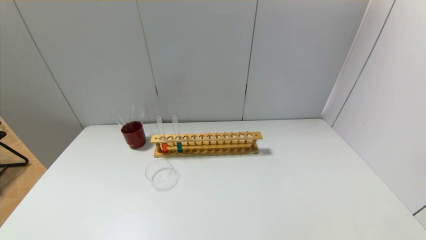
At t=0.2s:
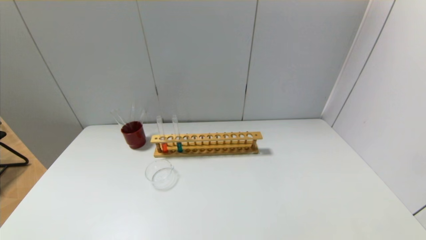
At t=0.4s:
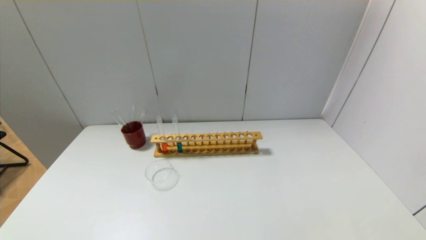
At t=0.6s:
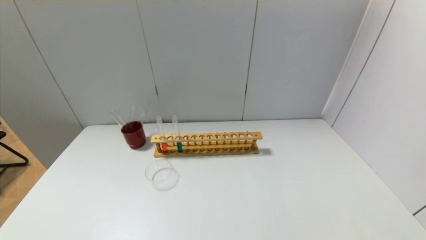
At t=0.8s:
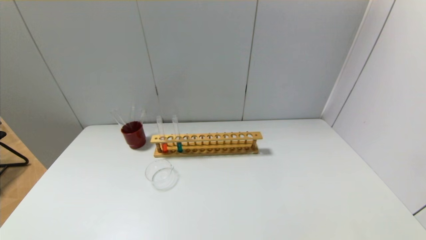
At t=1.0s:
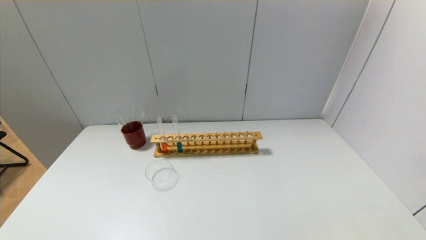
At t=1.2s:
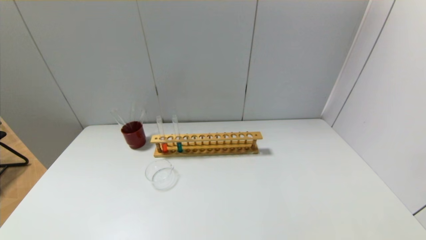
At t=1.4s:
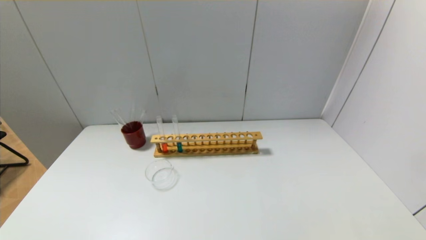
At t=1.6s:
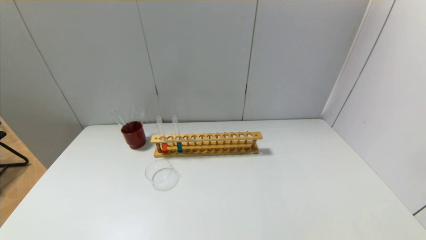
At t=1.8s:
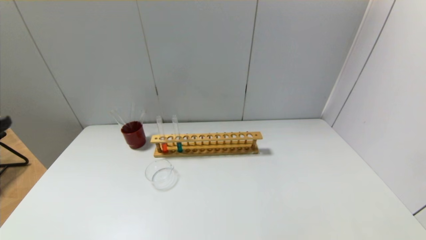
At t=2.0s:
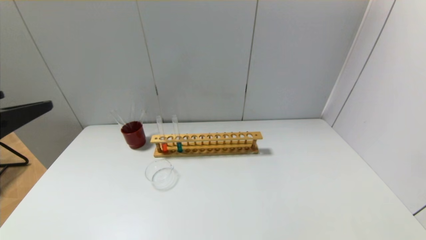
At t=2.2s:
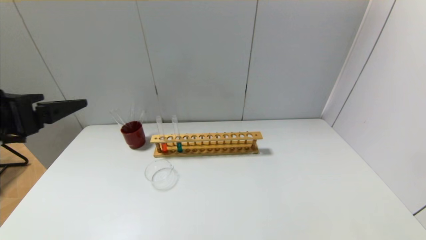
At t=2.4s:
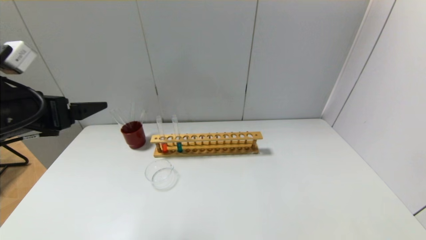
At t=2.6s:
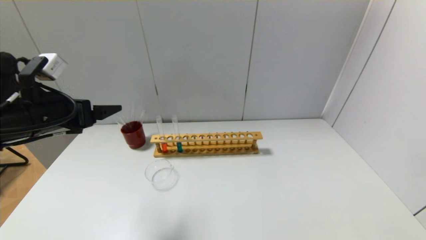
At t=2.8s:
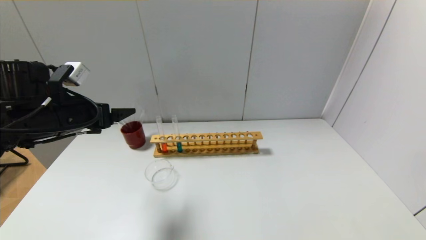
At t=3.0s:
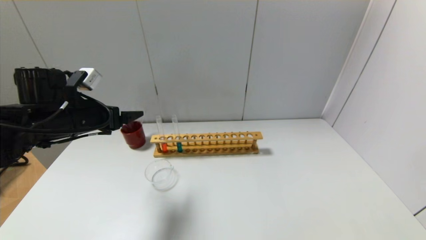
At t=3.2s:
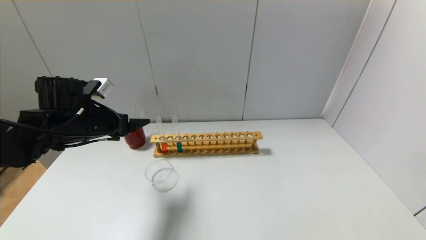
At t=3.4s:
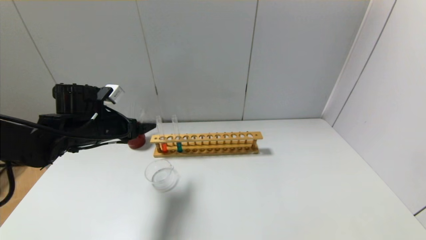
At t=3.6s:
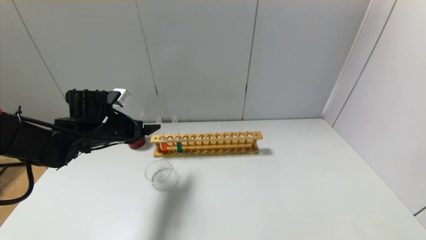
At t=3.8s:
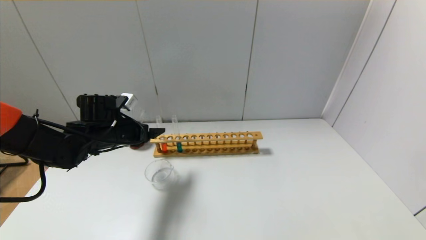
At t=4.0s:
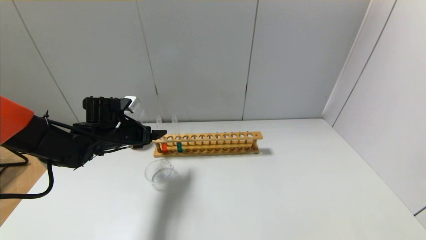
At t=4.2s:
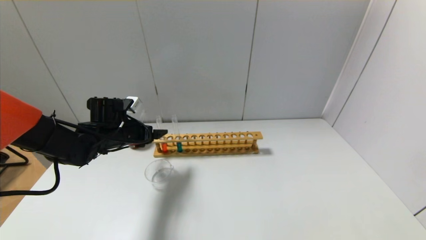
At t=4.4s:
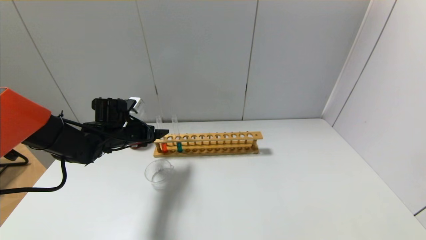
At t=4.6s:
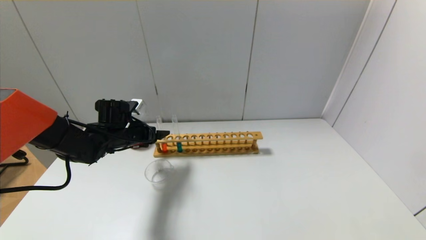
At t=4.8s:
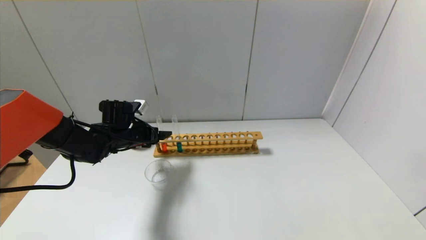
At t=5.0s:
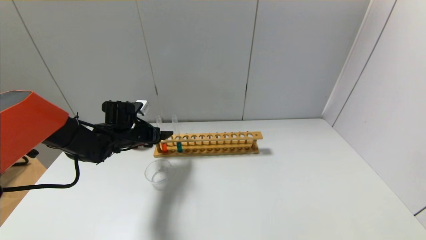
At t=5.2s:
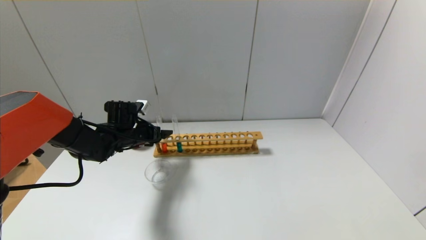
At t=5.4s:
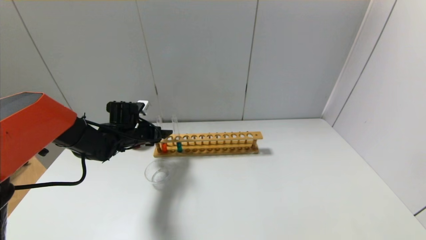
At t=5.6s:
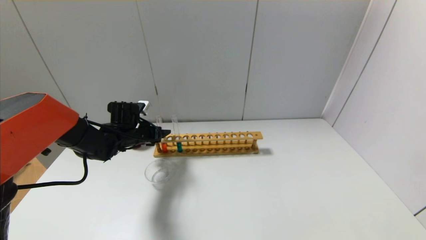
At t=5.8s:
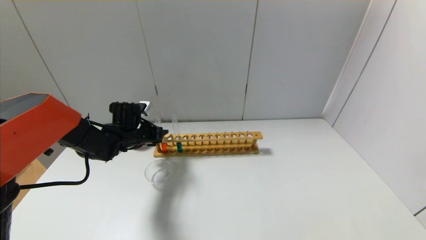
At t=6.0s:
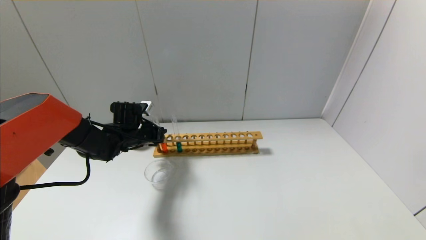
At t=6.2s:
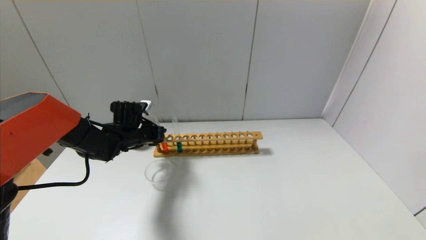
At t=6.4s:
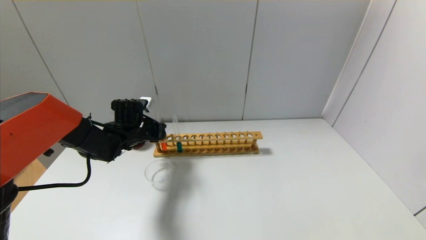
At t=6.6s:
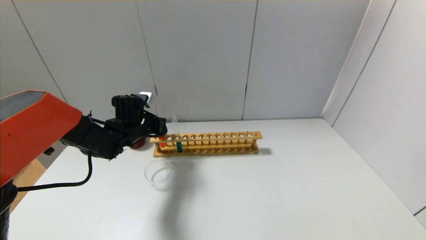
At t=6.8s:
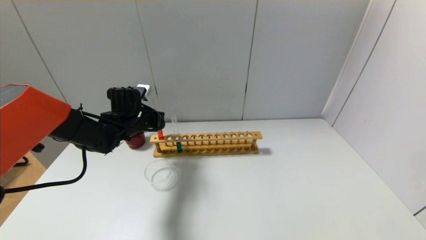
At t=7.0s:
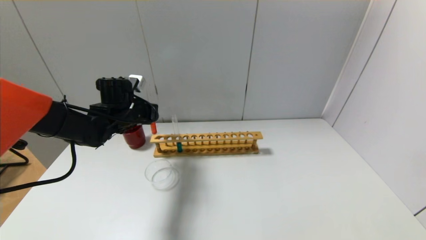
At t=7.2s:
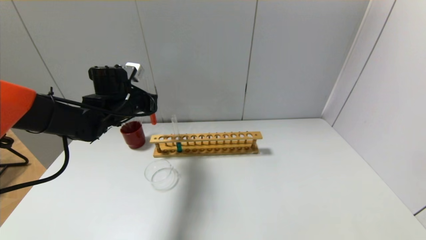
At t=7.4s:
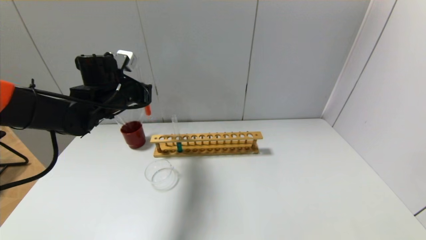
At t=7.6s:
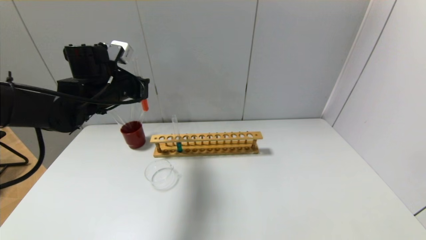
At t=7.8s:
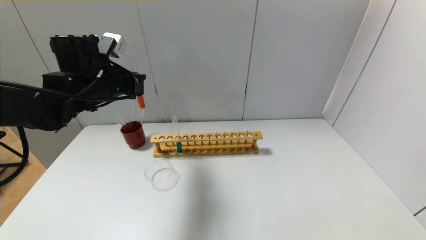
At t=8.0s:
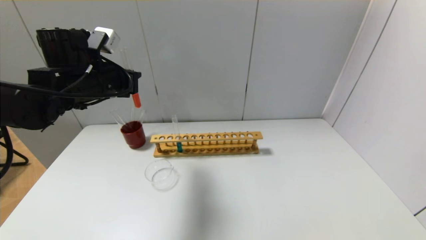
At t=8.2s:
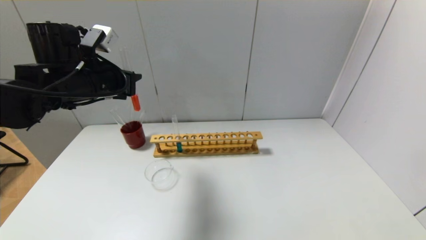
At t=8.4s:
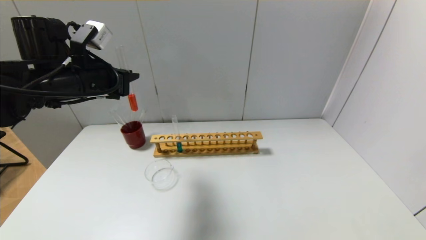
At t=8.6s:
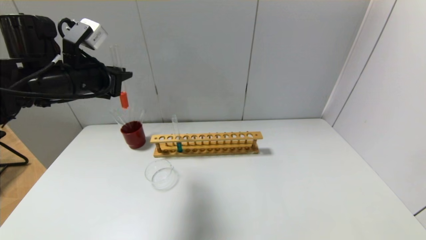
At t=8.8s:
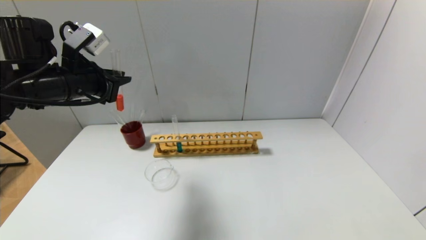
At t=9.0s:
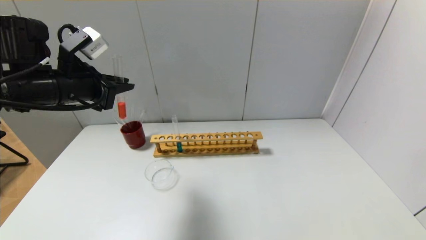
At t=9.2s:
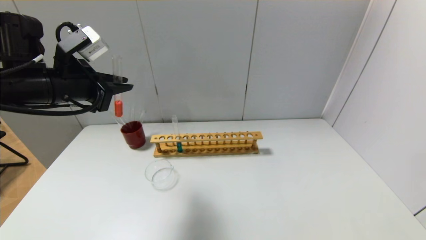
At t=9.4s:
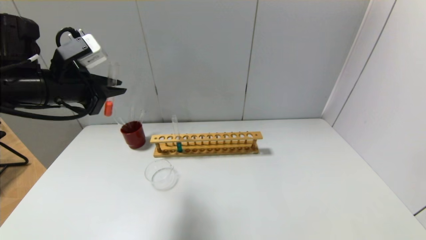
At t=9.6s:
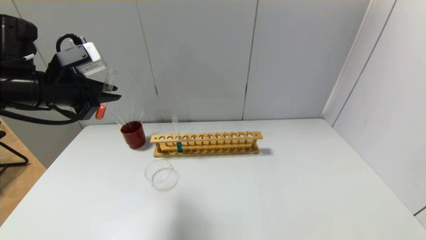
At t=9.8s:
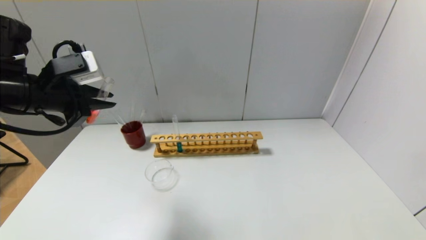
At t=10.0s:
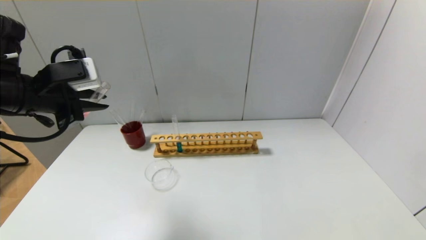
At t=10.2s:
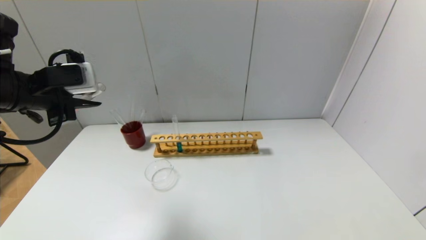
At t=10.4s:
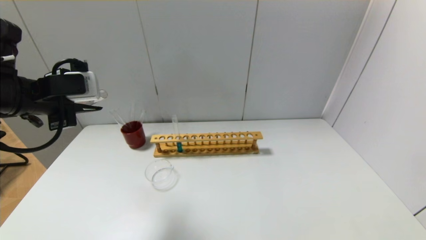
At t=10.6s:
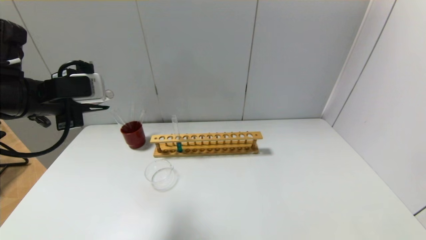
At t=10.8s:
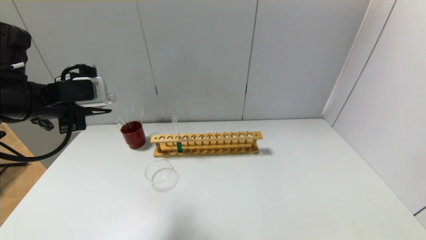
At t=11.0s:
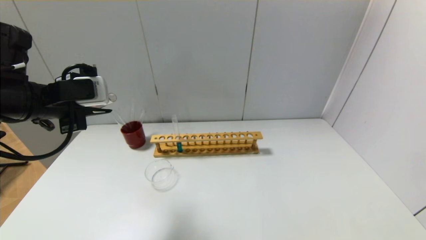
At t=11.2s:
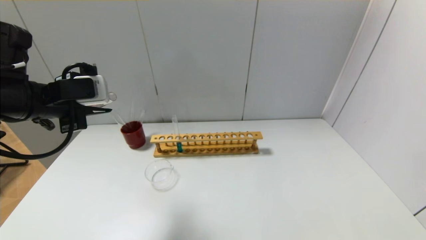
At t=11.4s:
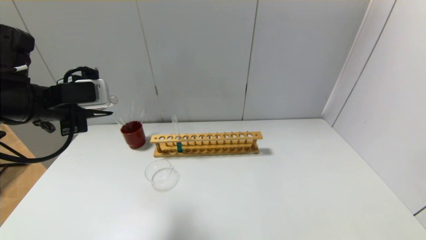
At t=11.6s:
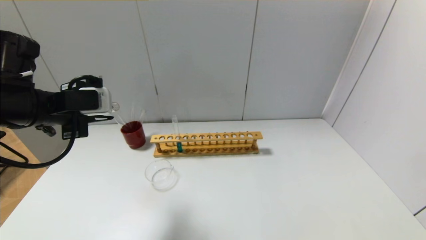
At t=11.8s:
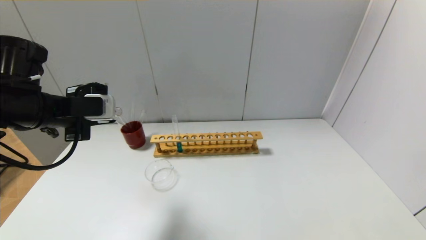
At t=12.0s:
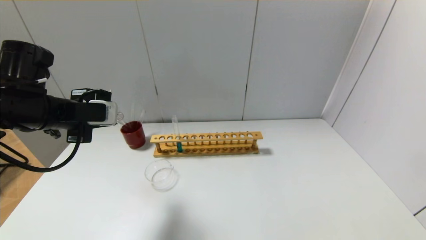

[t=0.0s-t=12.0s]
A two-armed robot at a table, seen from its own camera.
Step, t=0.0s to t=6.0s: Grasp the red reagent with the left gripper.
t=1.6s to t=3.0s: The left gripper moves forward, some 30 cm.
t=3.0s to t=4.4s: The left gripper shifts roughly 10 cm downward and forward.
t=4.4s to t=6.0s: The left gripper closes up.
t=6.0s to t=7.6s: The left gripper travels upward by approximately 15 cm.
t=7.6s to t=9.0s: The left gripper travels backward by about 10 cm.
t=10.4s to t=12.0s: There are only small adjustments of the grippers.

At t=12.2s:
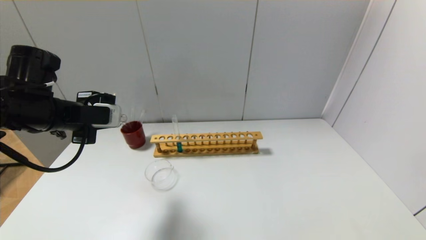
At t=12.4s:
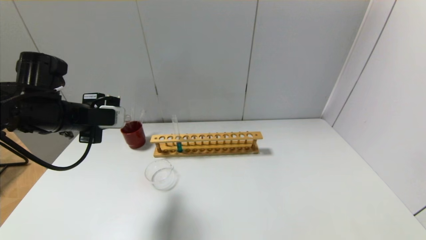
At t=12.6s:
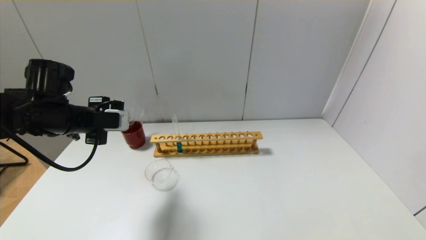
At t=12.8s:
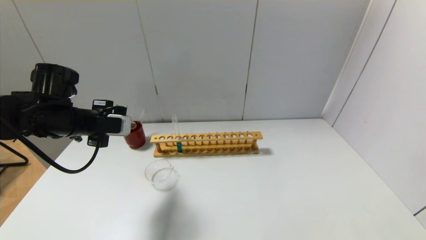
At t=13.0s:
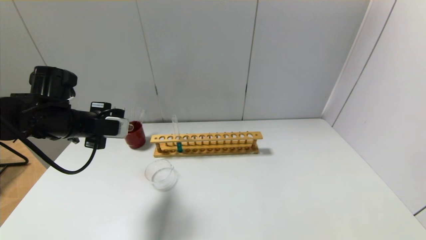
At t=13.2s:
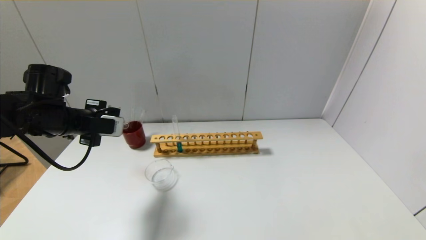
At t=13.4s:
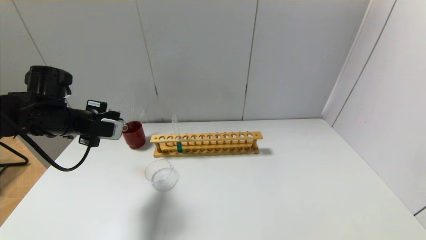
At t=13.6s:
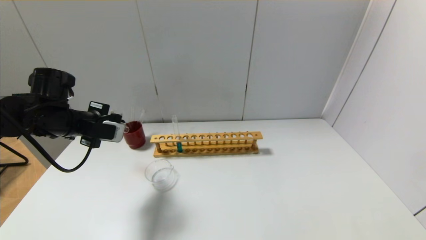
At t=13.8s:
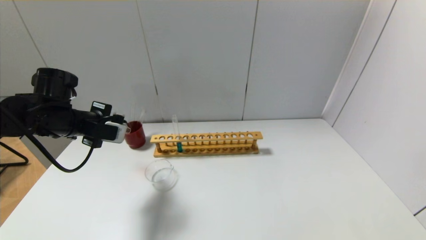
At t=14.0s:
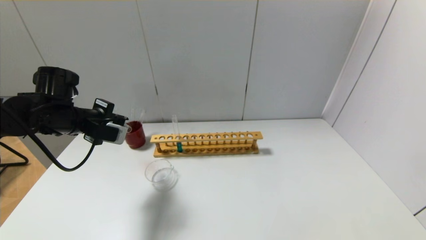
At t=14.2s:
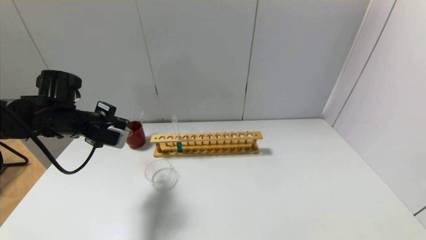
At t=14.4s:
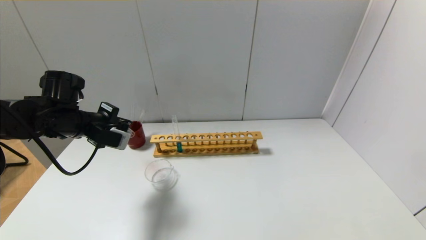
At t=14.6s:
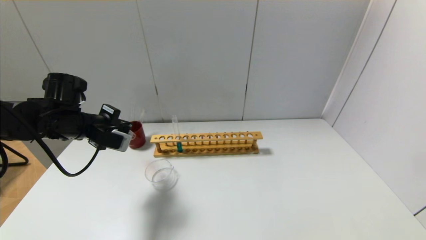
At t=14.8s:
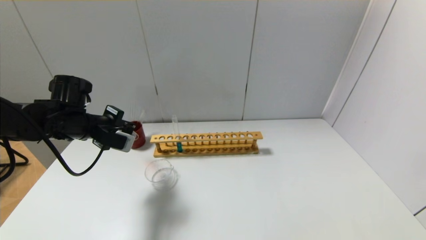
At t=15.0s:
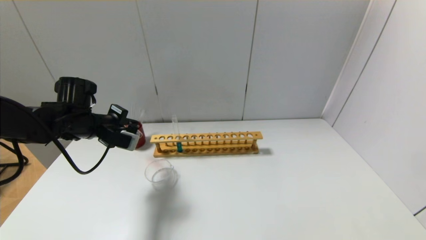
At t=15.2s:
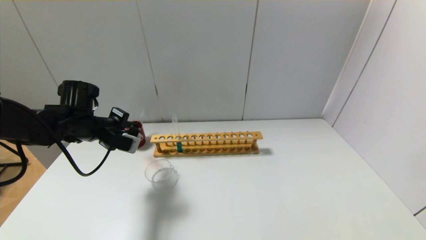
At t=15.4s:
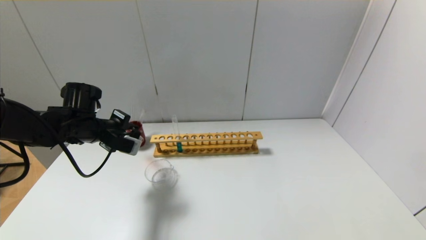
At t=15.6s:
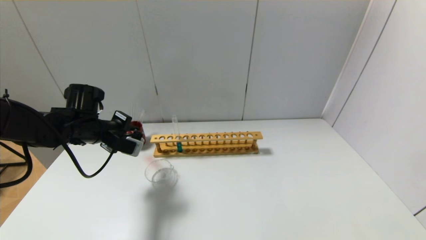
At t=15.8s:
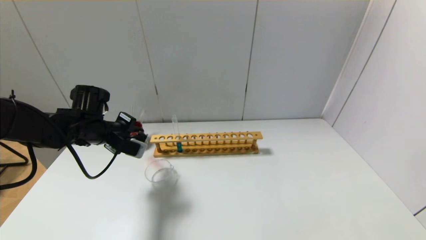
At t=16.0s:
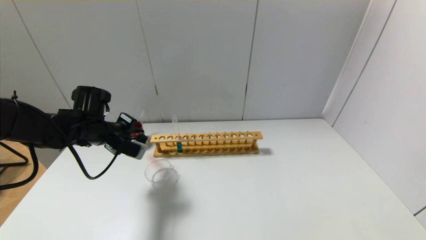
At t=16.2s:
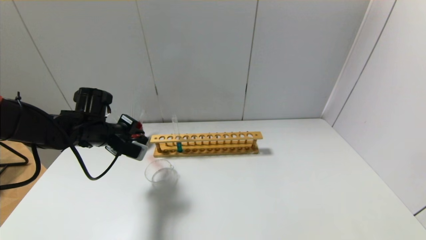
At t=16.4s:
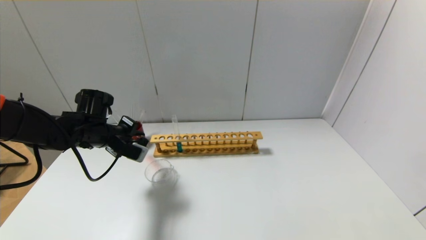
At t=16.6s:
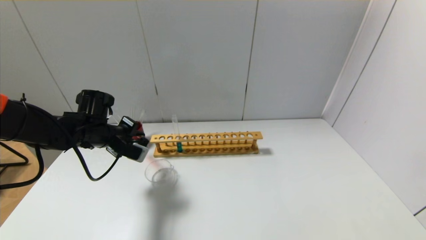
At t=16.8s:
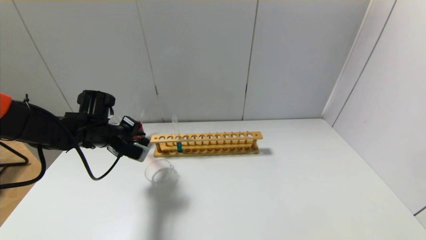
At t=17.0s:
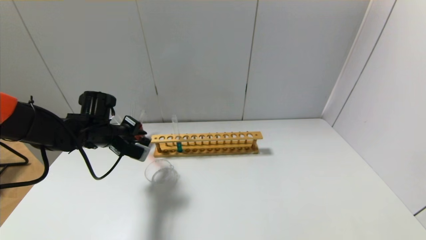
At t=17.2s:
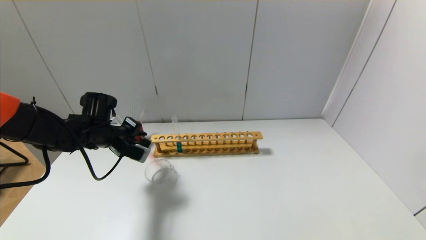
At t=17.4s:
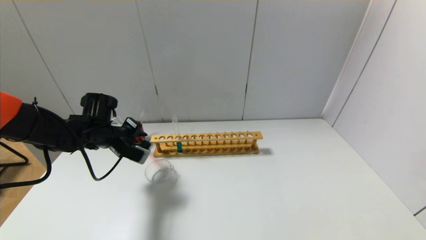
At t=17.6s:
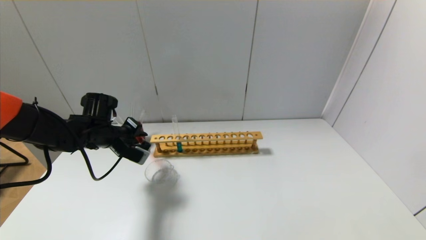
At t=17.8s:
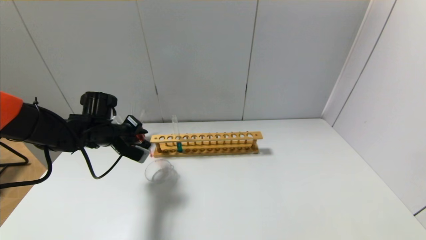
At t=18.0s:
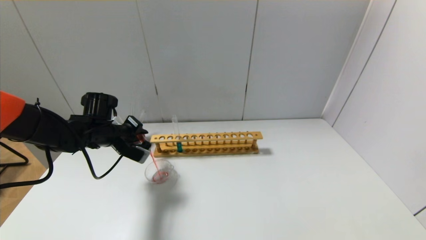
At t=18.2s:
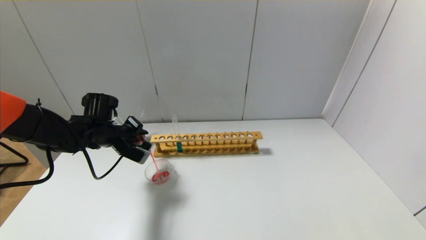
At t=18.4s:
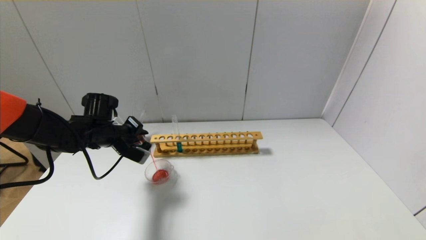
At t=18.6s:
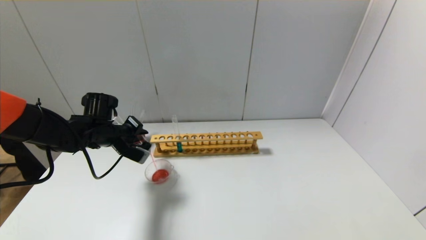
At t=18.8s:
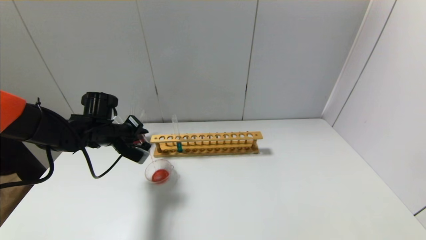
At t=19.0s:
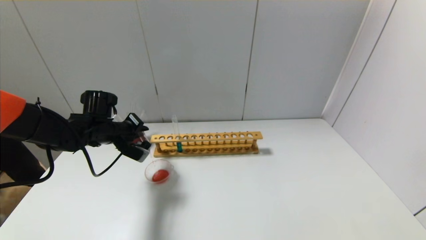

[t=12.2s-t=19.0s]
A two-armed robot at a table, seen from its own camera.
t=12.2s to t=13.6s: The left gripper shifts by about 5 cm.
t=13.6s to t=15.0s: The grippers stay close to where they were, moving slightly.
t=15.0s to t=19.0s: There are only small adjustments of the grippers.
